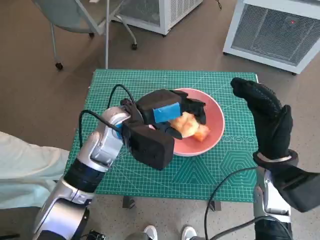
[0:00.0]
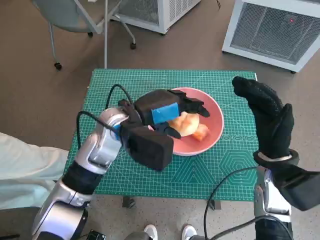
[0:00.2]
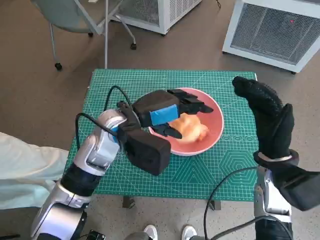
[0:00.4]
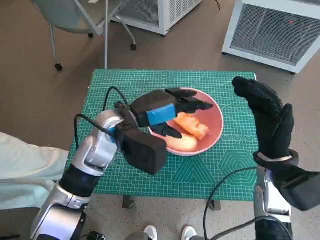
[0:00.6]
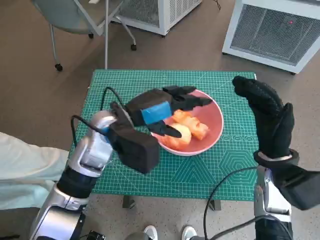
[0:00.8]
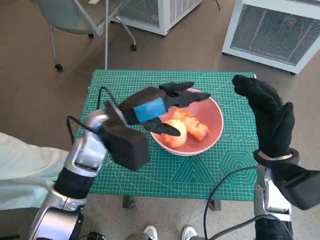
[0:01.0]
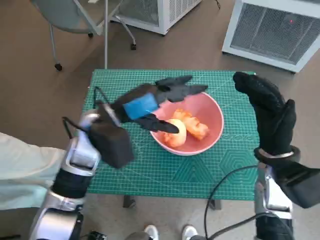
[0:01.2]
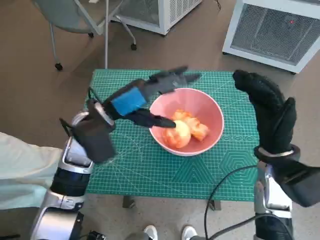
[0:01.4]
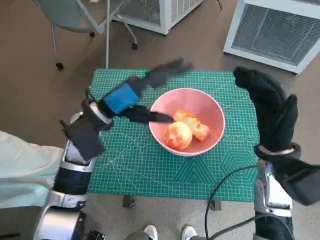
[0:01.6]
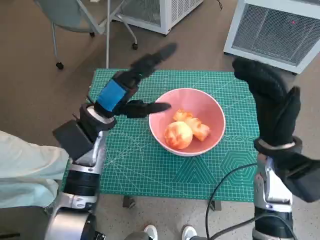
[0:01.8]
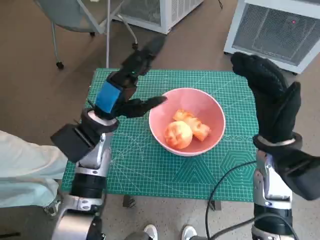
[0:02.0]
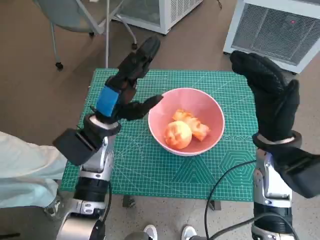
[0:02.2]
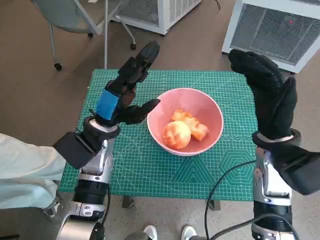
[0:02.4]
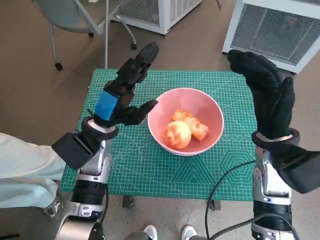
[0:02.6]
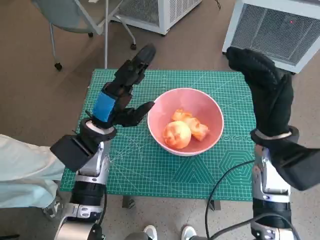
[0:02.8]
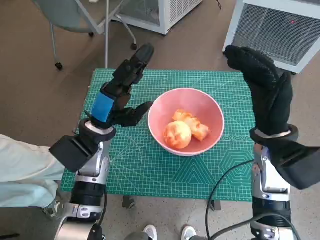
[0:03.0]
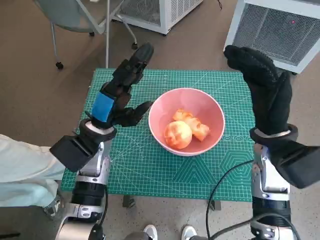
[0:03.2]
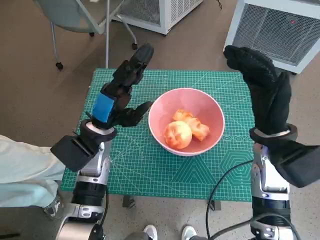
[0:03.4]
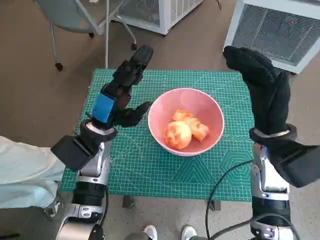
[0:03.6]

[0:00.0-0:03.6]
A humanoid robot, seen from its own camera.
Task of the whole recording: Push the bowl into the center of the table and put the bread into the bowl.
0:00.0 to 0:01.8: The left hand moves to the left, about 5 cm.
0:01.8 to 0:03.6: The hands move only a little.
